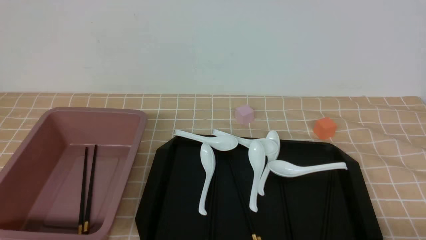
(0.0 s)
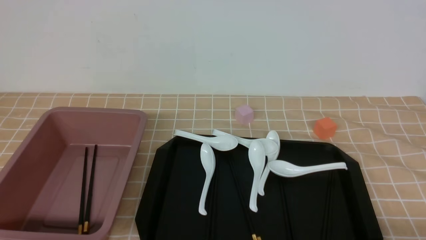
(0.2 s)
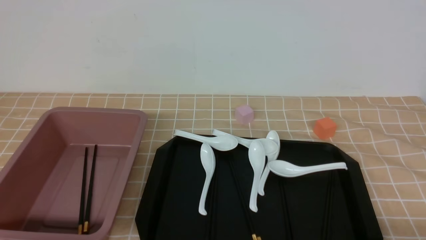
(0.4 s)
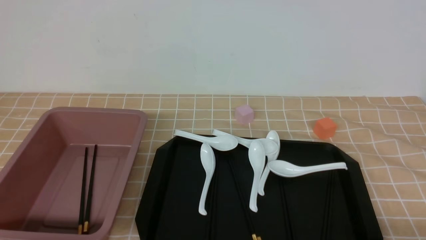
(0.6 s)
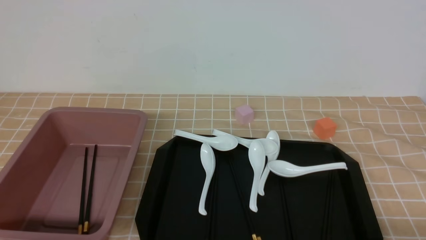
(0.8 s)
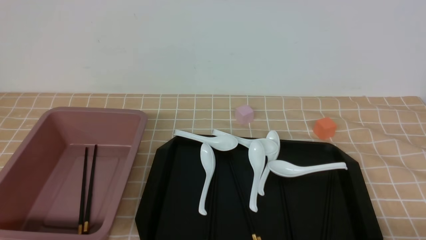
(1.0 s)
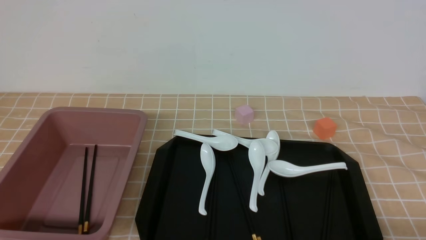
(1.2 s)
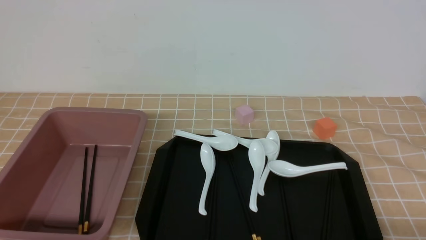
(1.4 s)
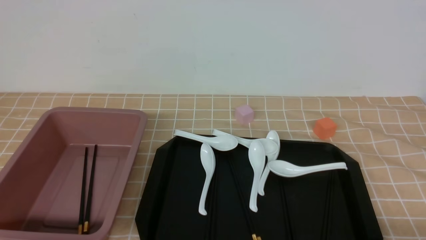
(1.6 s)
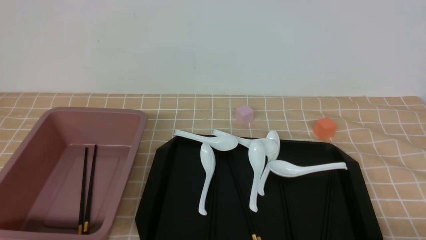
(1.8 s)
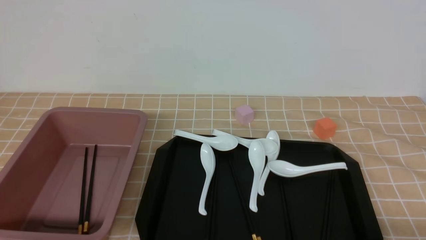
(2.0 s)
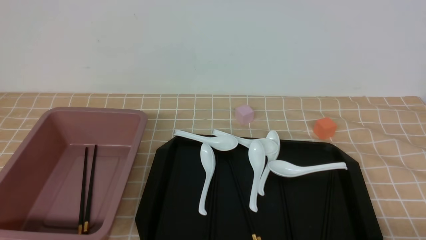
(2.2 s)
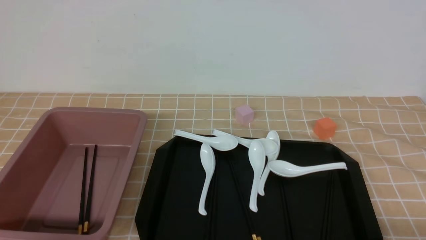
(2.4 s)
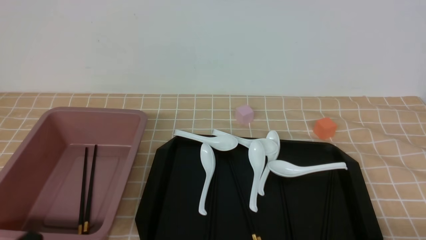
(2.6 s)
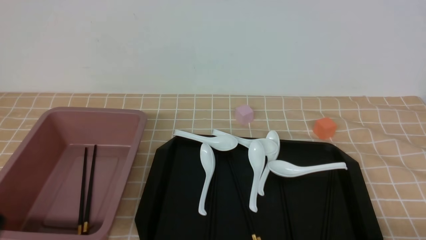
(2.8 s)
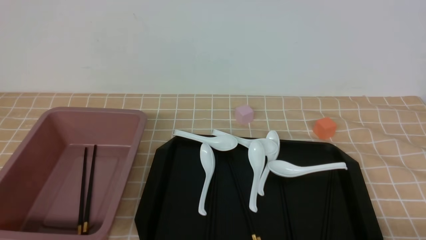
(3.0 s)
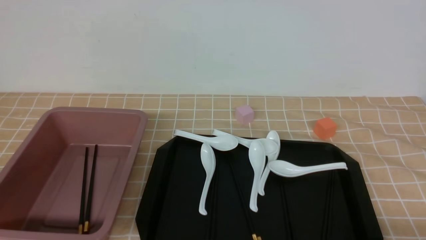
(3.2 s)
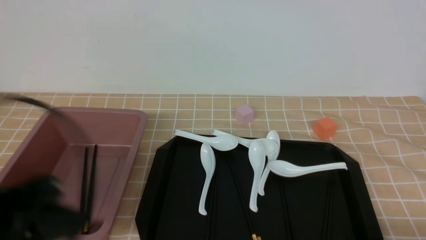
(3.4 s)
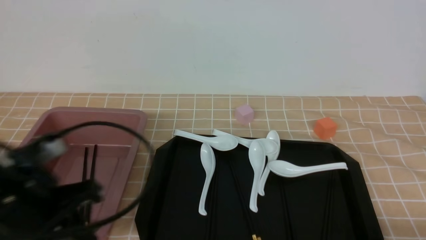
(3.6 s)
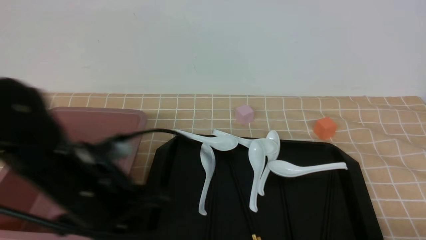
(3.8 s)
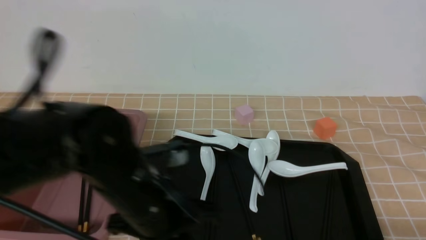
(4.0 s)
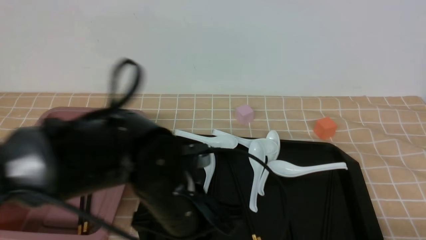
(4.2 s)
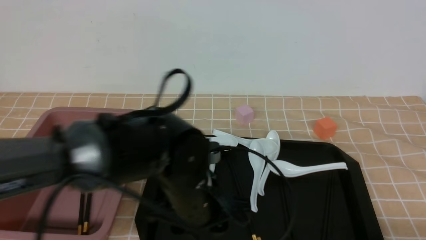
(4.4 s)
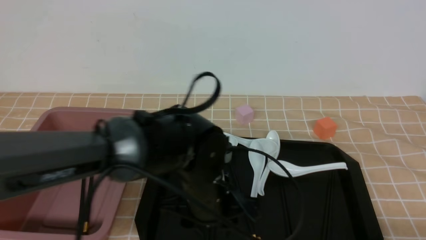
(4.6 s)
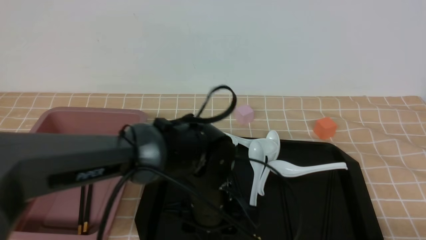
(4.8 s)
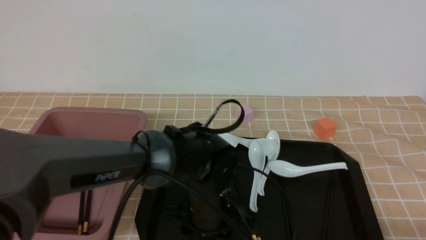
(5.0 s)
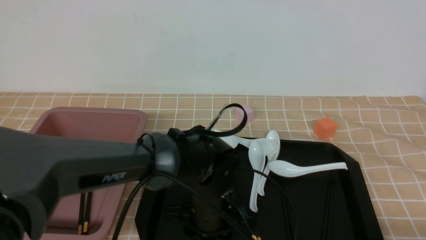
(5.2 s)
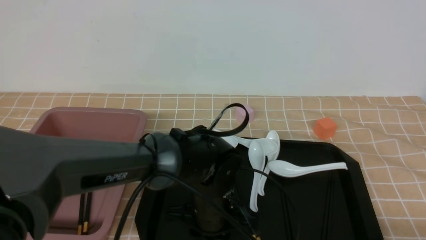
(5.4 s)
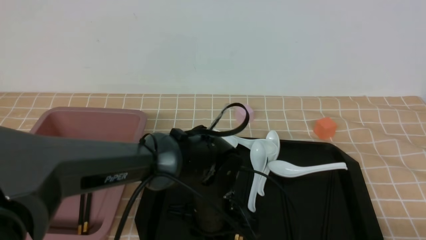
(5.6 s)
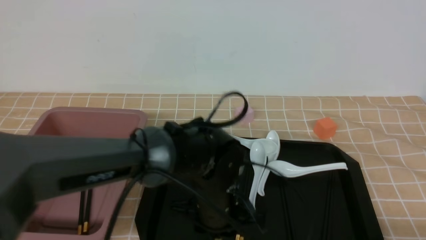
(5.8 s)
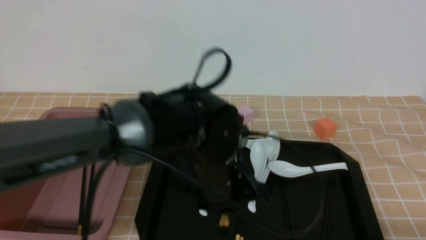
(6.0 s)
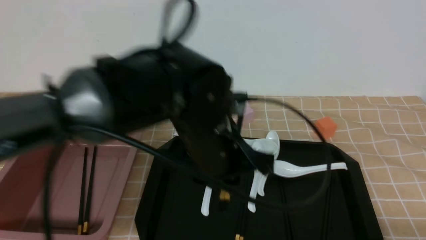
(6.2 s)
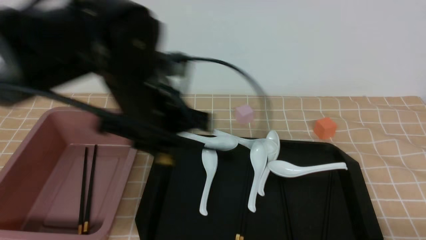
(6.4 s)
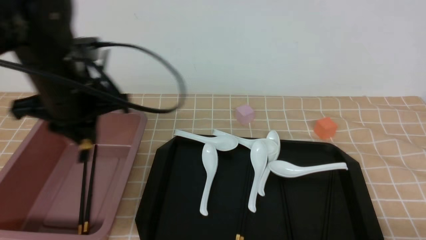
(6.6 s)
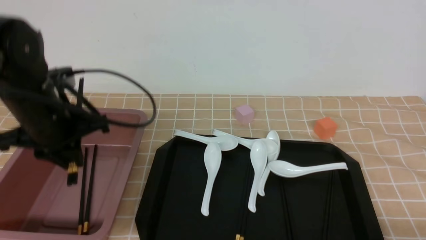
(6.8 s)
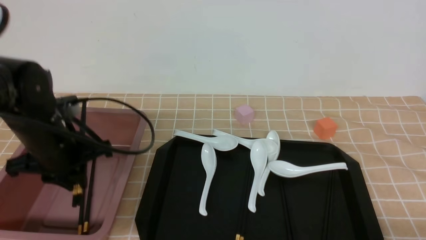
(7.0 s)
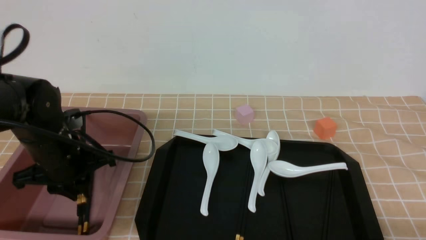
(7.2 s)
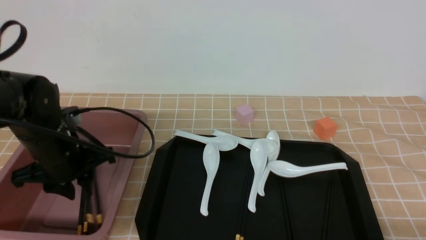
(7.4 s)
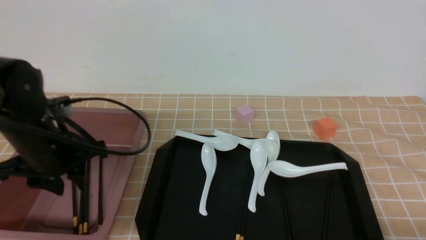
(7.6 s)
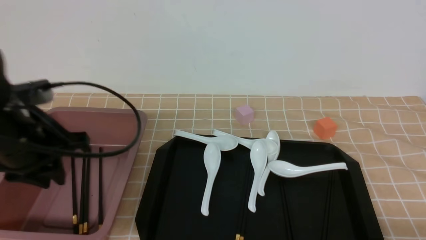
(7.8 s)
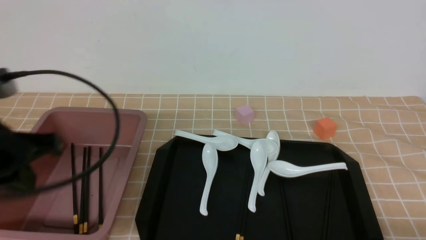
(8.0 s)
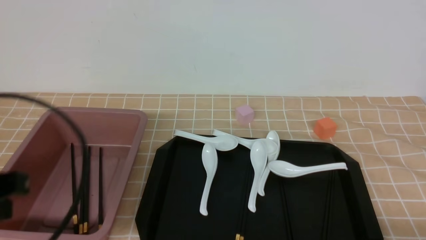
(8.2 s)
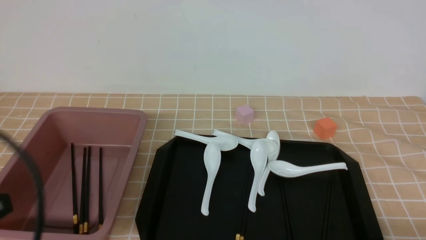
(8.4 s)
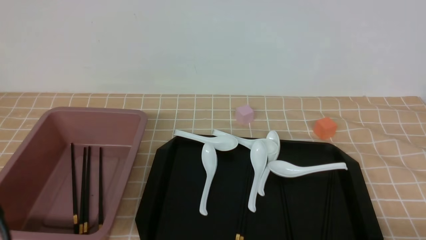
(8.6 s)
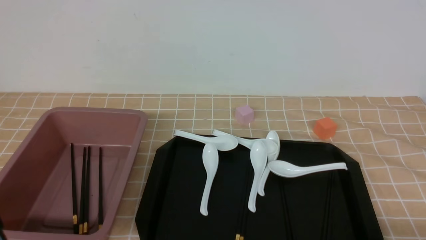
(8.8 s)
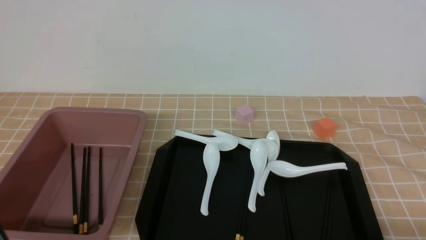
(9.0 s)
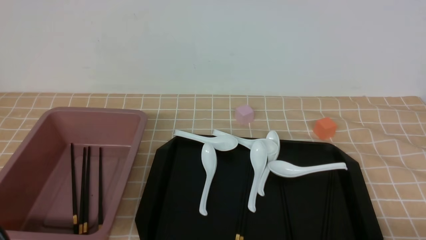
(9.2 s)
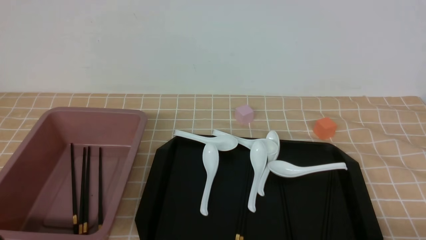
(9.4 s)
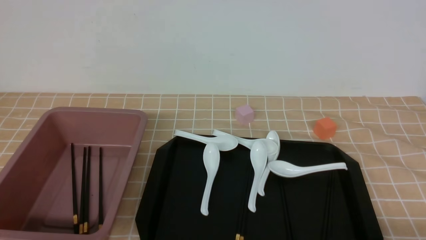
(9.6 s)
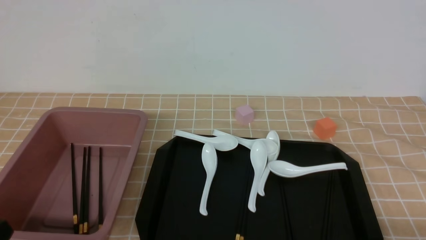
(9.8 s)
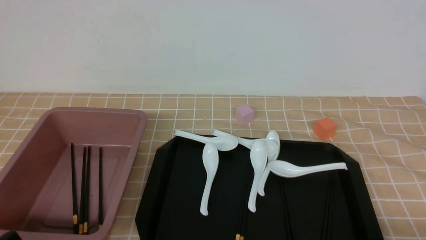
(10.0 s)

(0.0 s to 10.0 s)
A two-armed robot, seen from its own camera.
Step, 0.0 s - 5.8 s: use the left arm to grab a pair of chopsticks.
Step, 6.2 s - 7.8 s: use the left arm to put the chopsticks into the lunch box.
0.0 s - 1.4 s: Both grippers stay about where they are.
2.8 s - 4.2 s: The left gripper moves to the right and forward, approximately 25 cm.
4.2 s - 5.8 s: The left gripper goes some 5 cm to the right, and opens, then closes again.
5.8 s - 7.2 s: The left gripper shifts about 25 cm to the left.
7.2 s - 8.6 s: The left gripper heads backward, covering roughly 25 cm, and closes up.

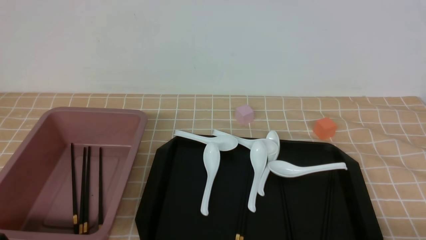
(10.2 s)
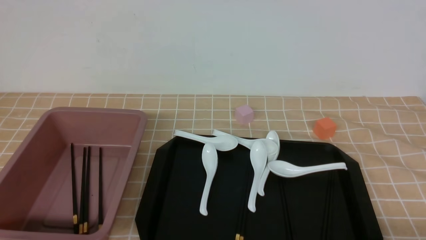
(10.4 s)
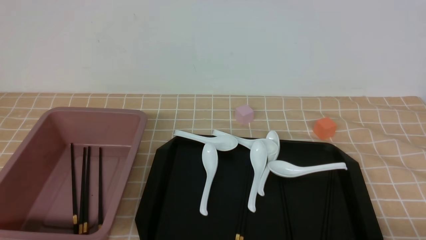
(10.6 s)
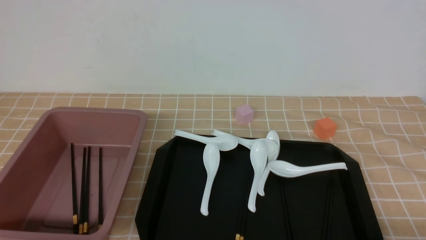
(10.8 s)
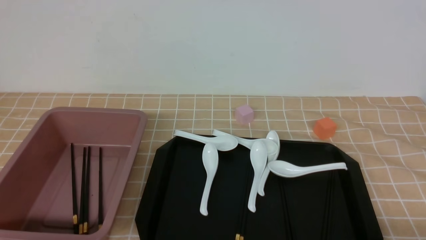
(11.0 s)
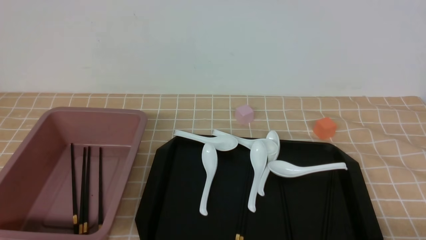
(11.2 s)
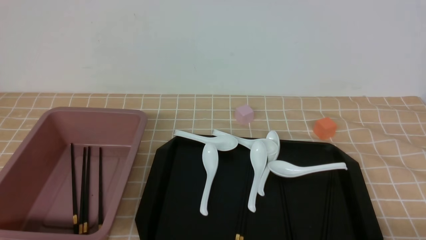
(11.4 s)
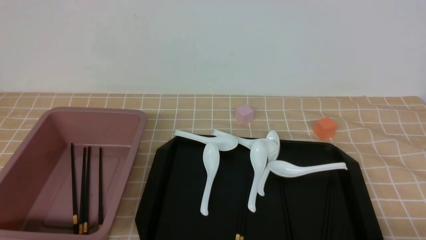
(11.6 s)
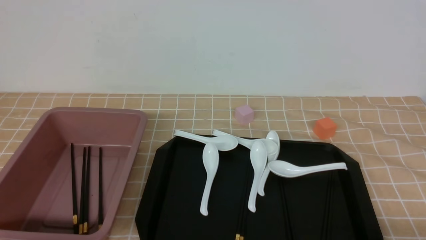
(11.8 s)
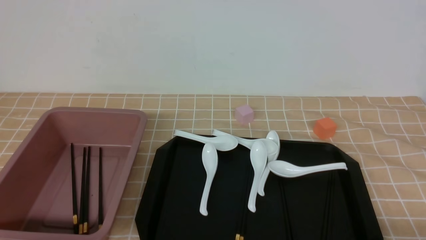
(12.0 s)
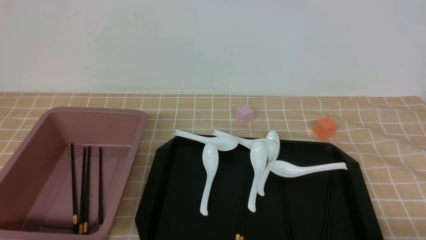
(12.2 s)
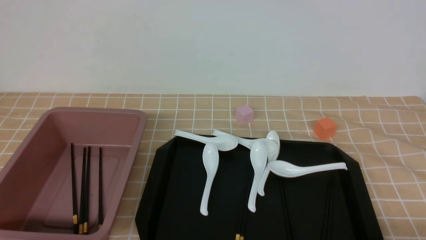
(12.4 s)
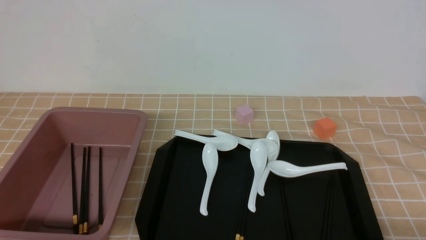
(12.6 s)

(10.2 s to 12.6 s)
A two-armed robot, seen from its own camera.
11.4 s - 12.6 s: The two grippers keep their place.
